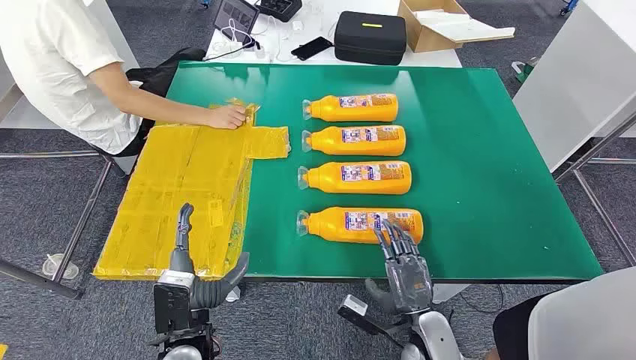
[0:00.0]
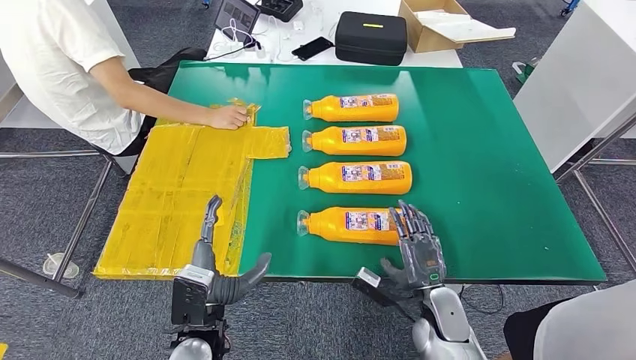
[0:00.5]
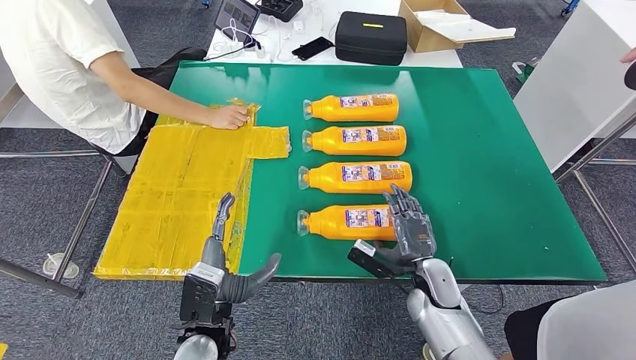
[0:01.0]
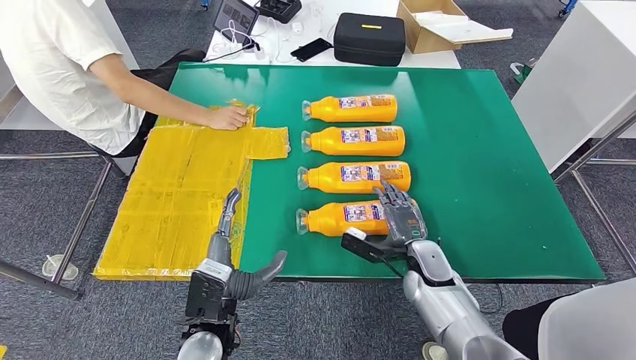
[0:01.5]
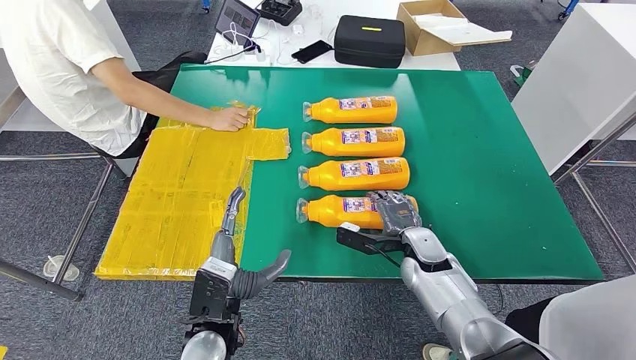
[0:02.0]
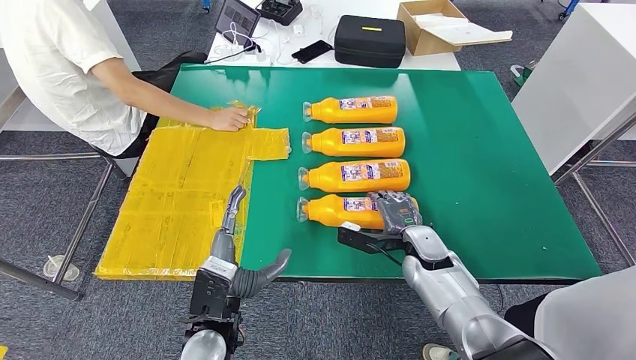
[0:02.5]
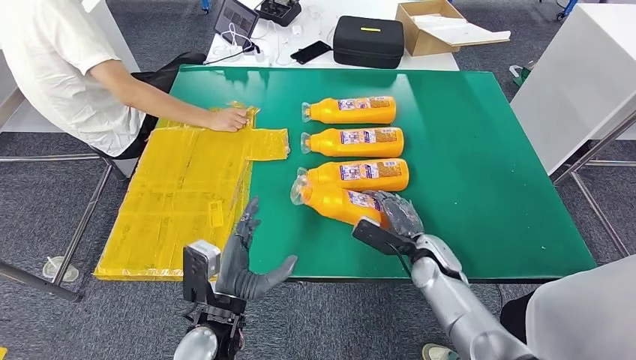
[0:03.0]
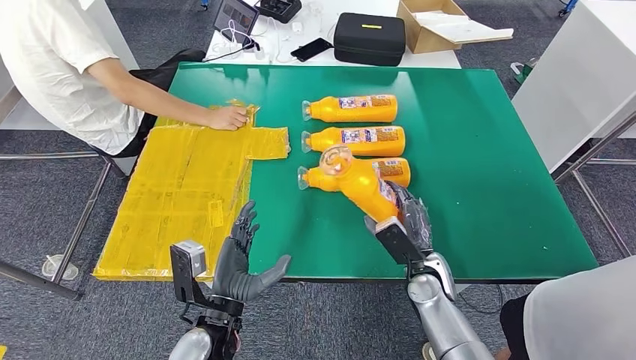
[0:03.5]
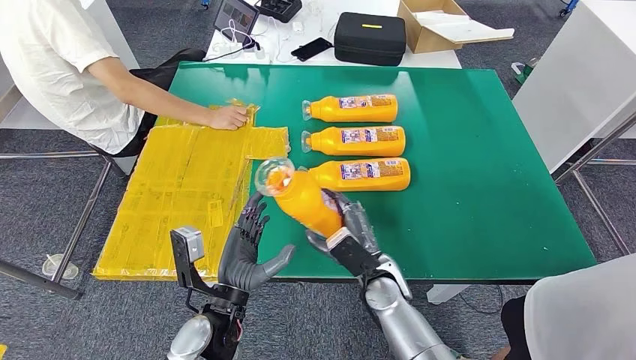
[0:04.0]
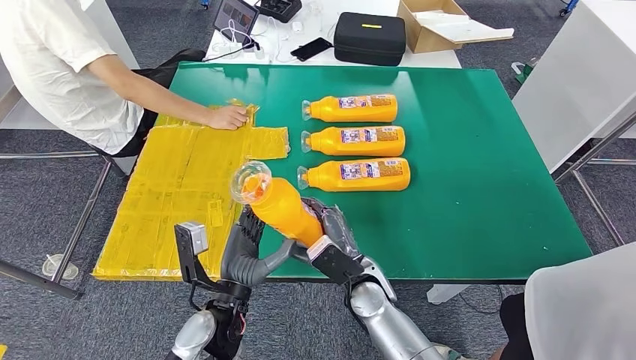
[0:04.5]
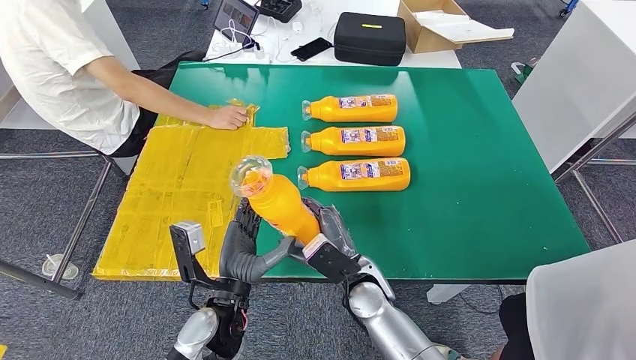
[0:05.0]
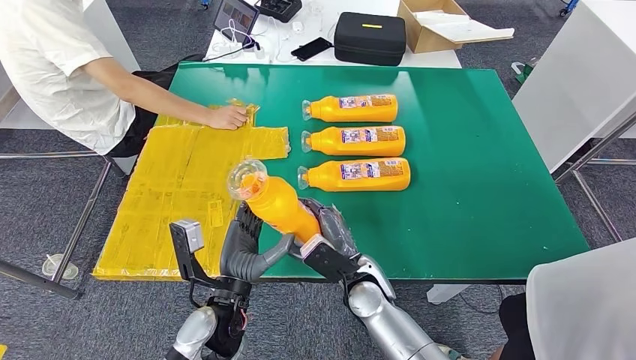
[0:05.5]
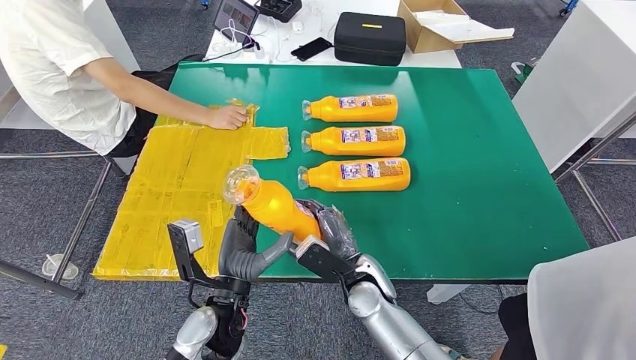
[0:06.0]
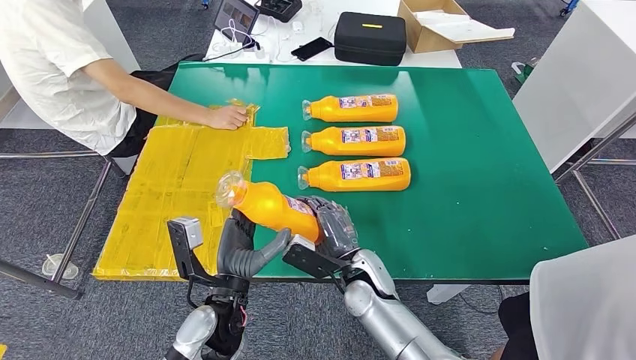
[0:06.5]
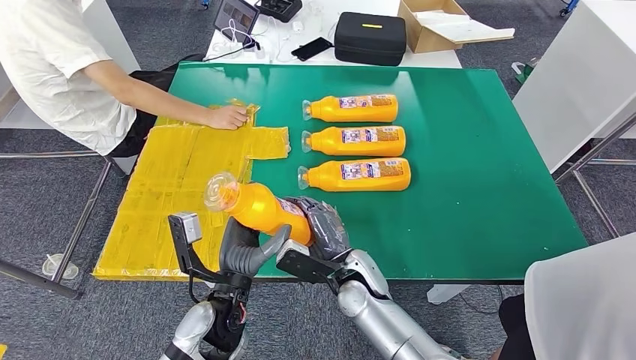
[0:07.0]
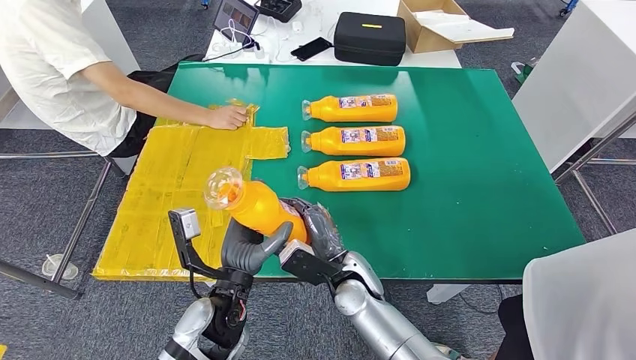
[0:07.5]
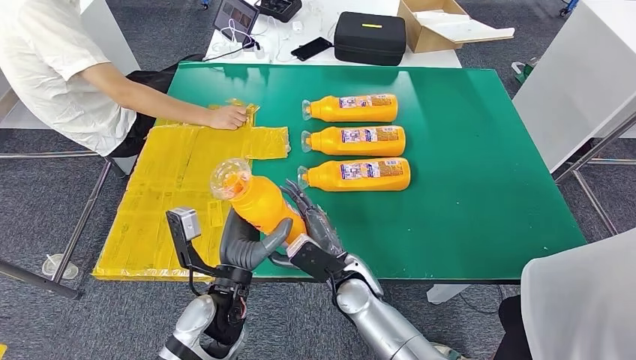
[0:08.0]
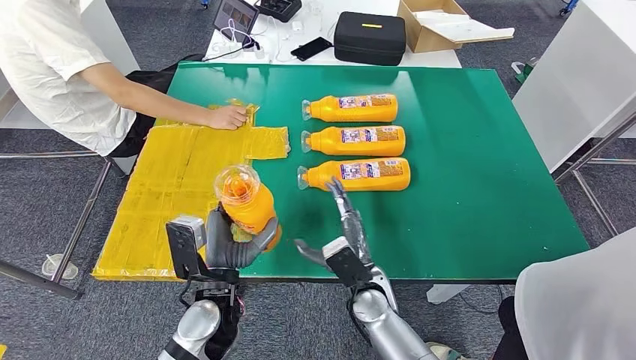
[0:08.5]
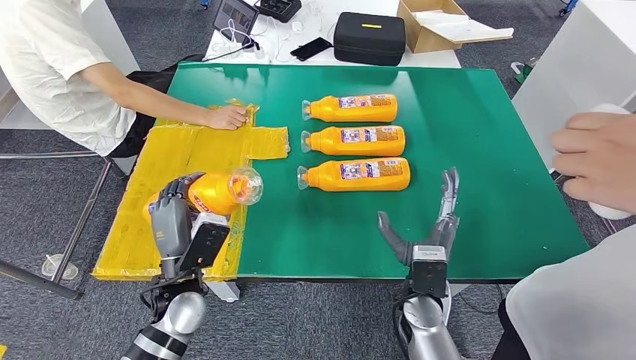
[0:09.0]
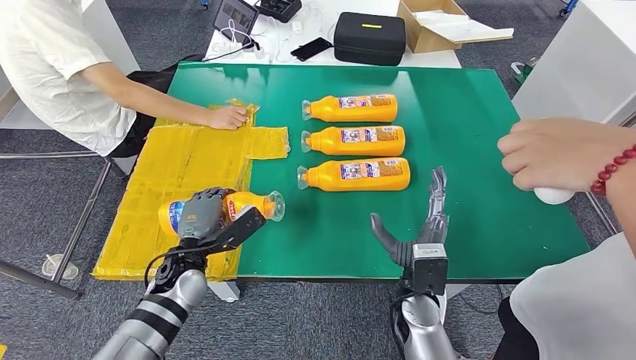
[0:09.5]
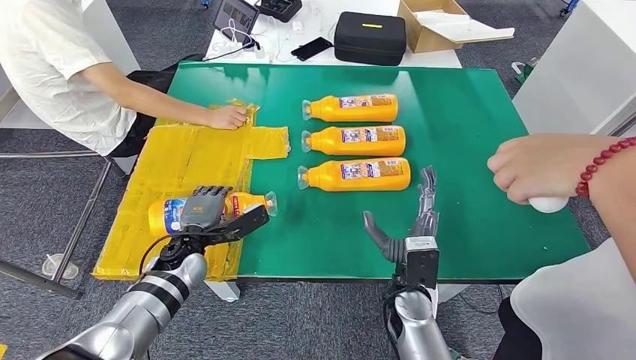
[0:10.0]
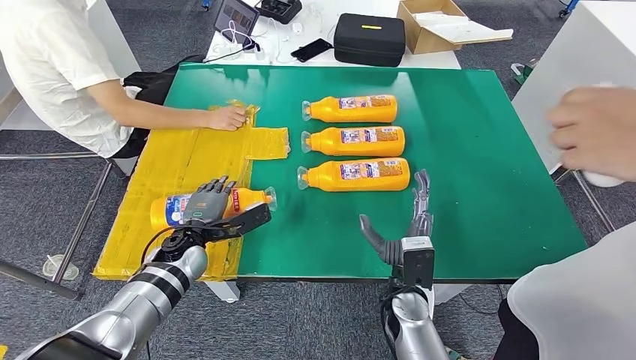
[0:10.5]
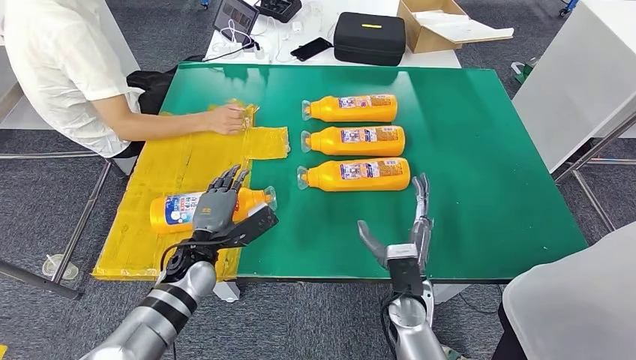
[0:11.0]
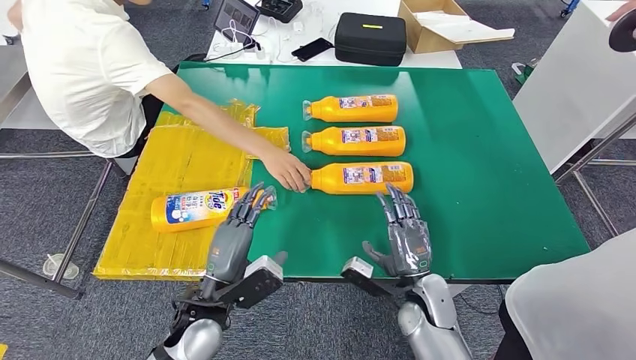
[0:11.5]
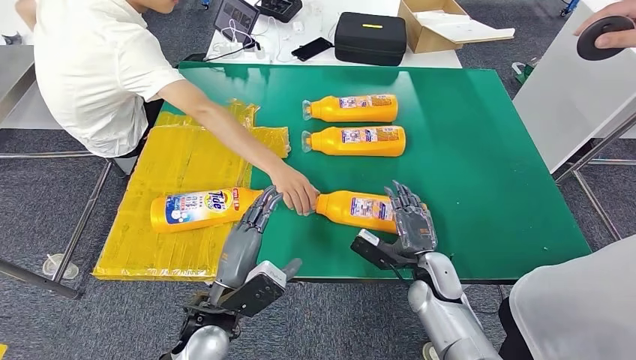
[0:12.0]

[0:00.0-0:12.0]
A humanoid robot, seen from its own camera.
Step, 0:00.0 to 0:03.5: Take the fast-moving consumer goods bottle from the table.
Step, 0:07.0 to 0:10.5: Flip the fast-moving consumer goods bottle to the front side.
0:04.0 to 0:06.0: The hands move only a little.
0:06.0 to 0:08.0: The hands make only small movements.
0:08.0 to 0:10.0: The left hand travels to the left, forward and downward by roughly 15 cm, while the right hand goes approximately 10 cm to the right.

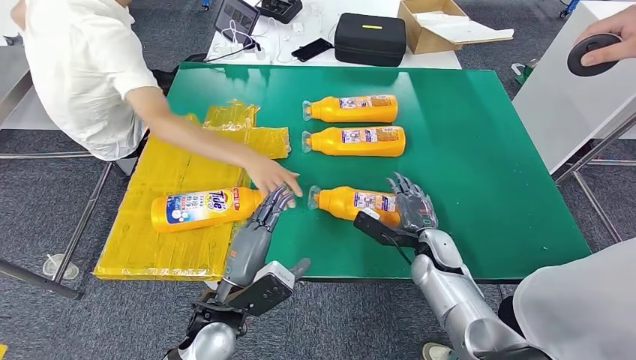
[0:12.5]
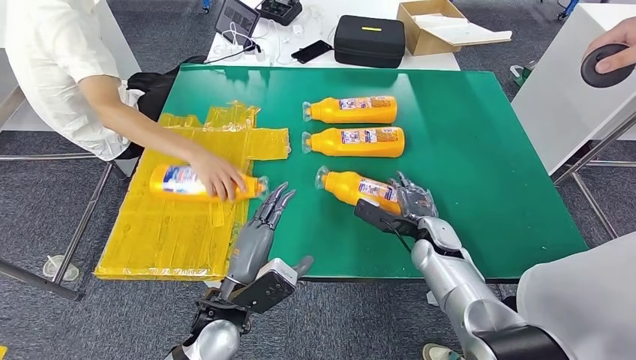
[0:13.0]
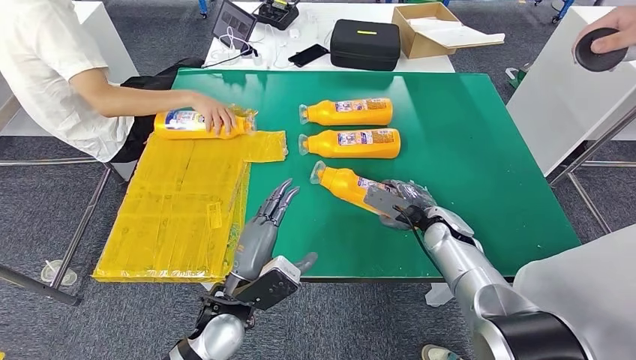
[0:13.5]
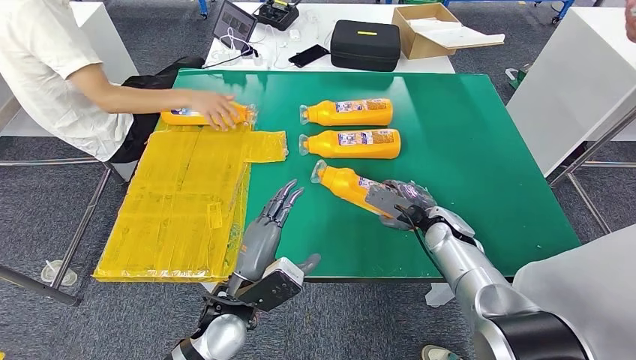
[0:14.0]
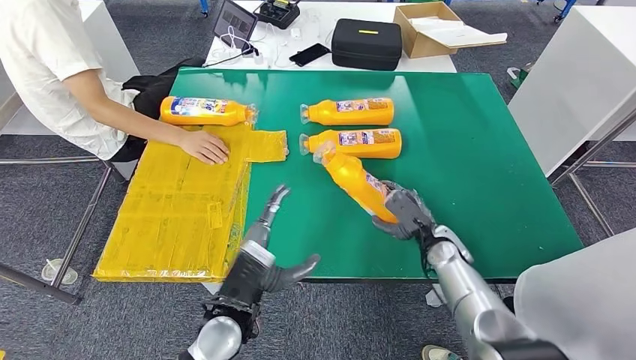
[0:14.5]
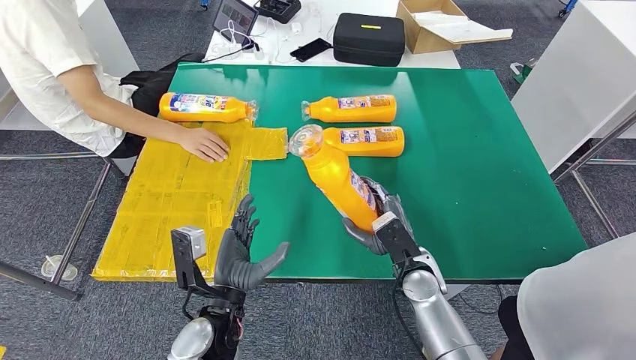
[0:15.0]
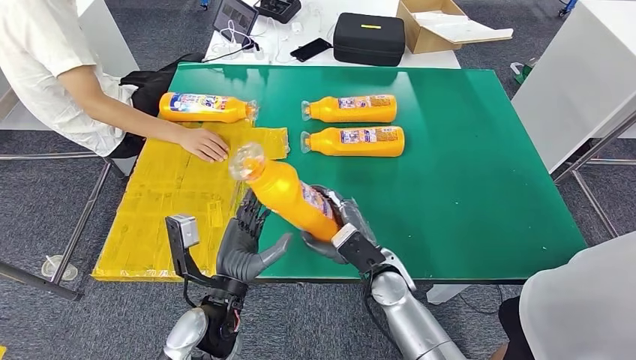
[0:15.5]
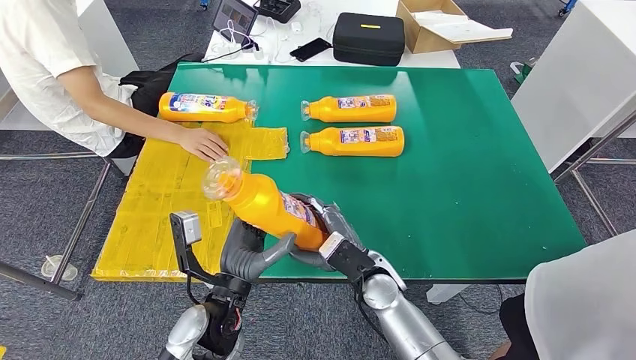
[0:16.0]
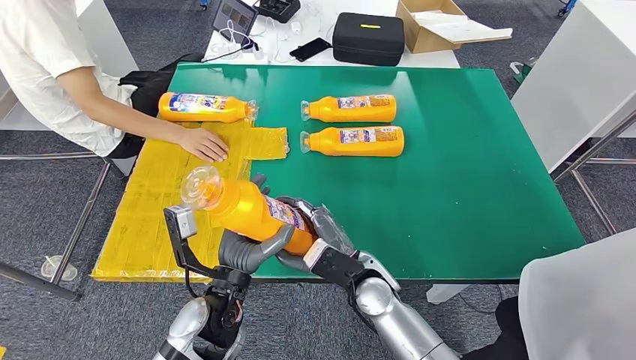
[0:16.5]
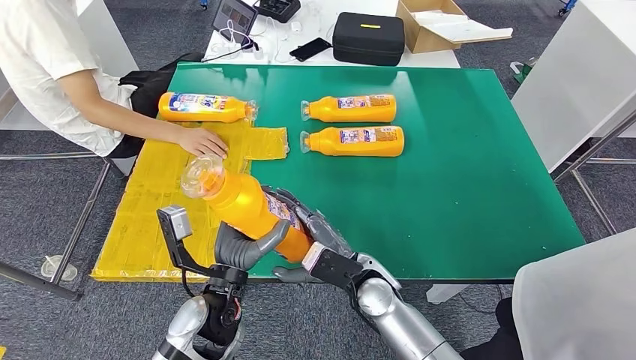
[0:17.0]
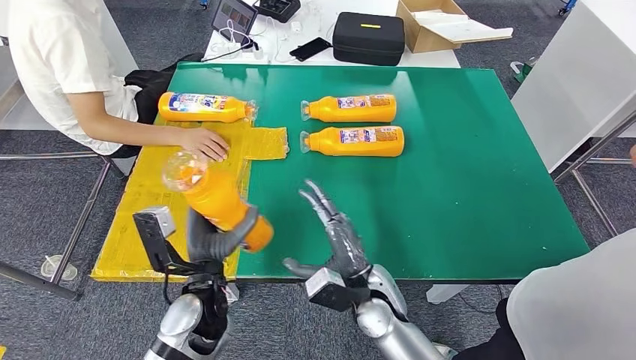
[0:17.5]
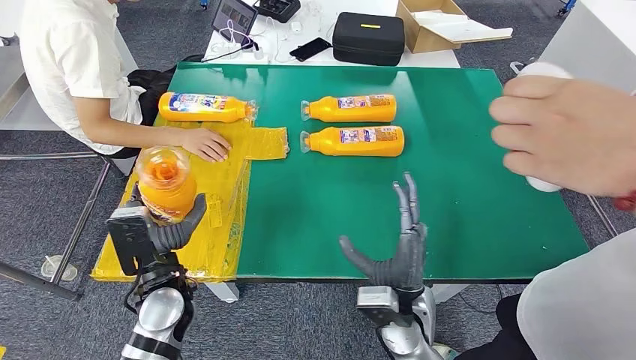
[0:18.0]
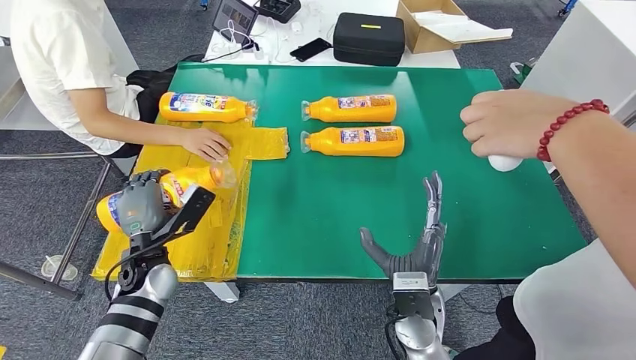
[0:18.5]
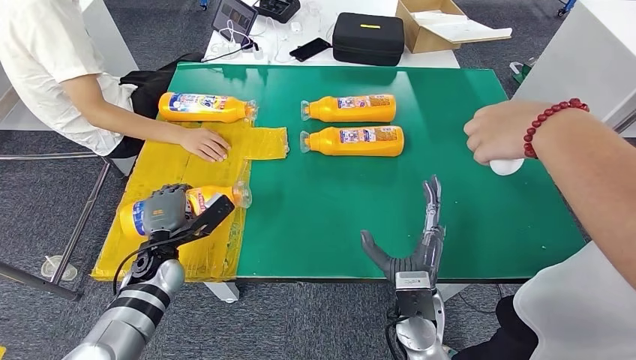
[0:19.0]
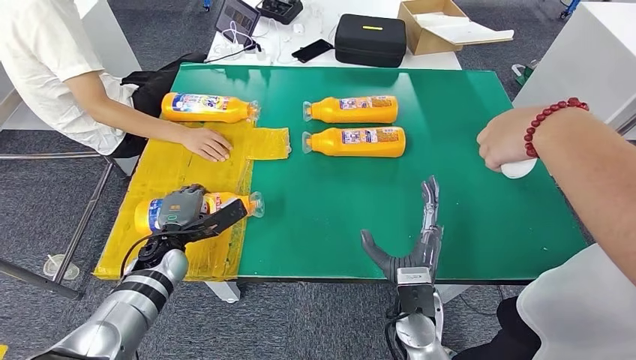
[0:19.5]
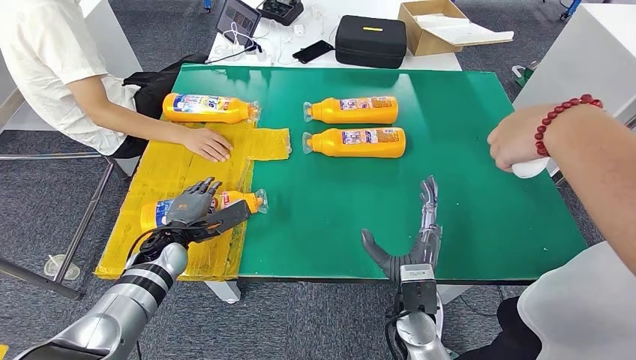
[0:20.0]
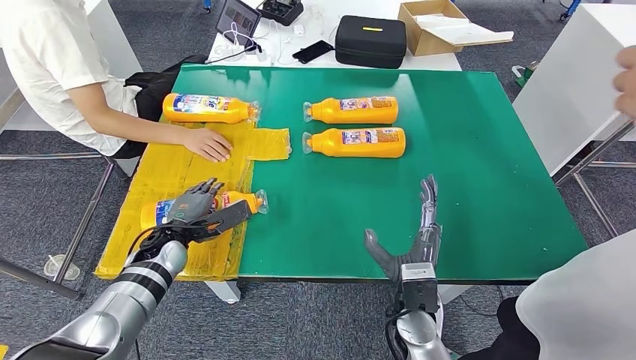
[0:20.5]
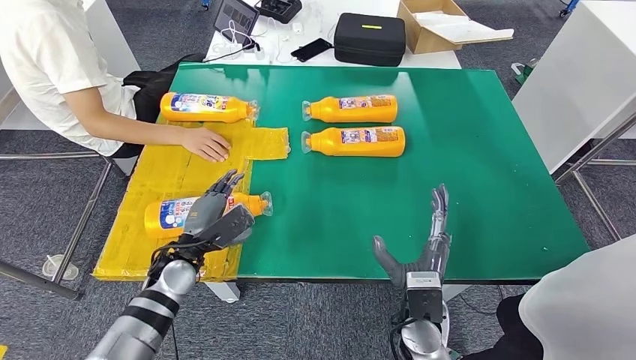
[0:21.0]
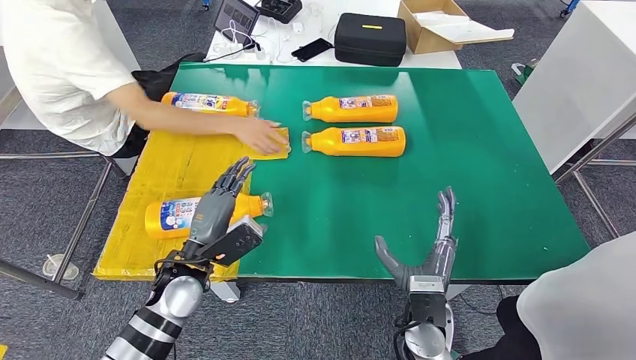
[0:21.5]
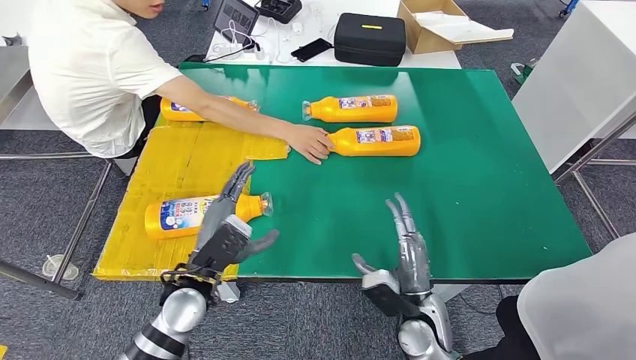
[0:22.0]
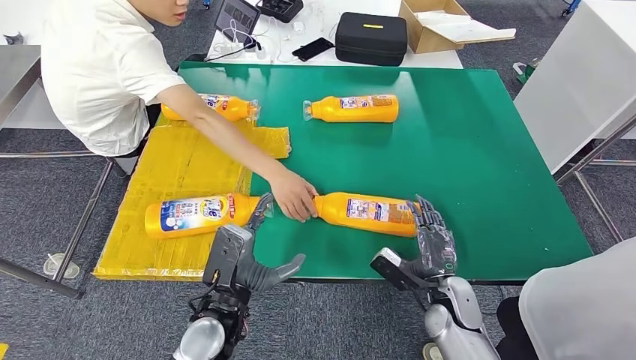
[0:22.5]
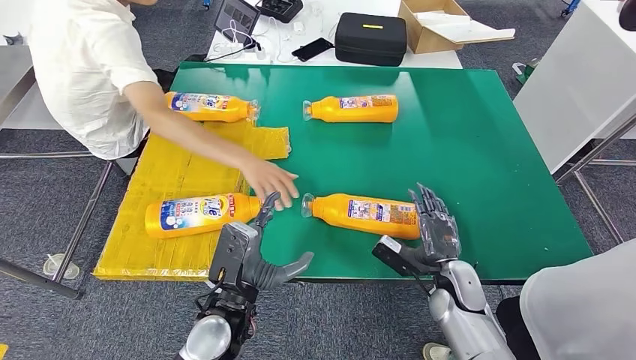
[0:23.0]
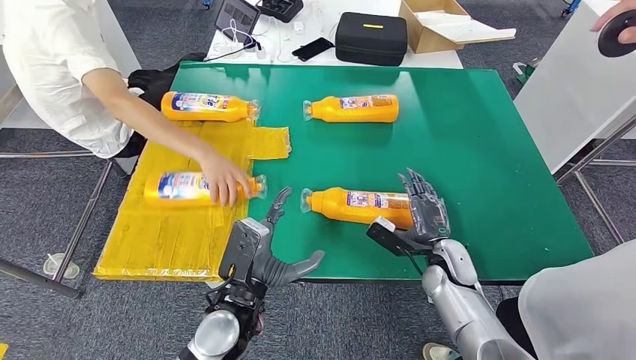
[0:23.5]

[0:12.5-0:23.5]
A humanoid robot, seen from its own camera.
Step, 0:13.0 to 0:16.5: Pick up the fast-moving consumer goods bottle from the table.
Step, 0:17.0 to 0:20.0: Flip the fast-moving consumer goods bottle to the front side.
